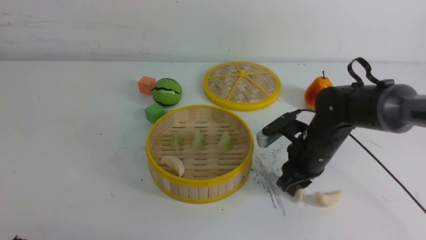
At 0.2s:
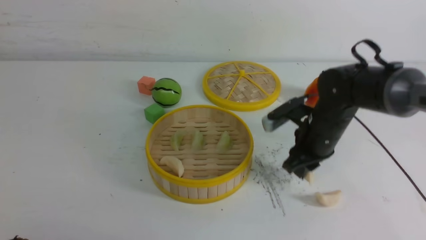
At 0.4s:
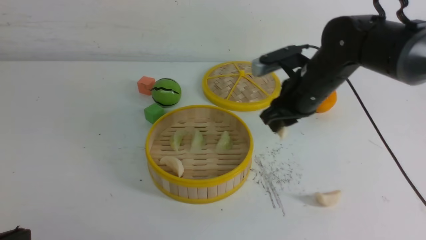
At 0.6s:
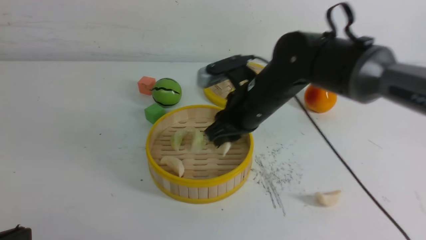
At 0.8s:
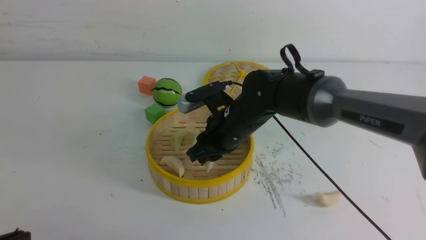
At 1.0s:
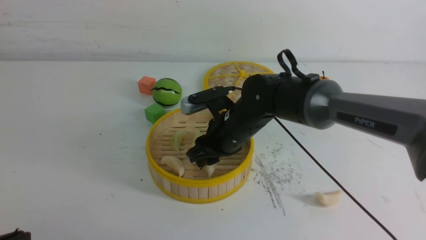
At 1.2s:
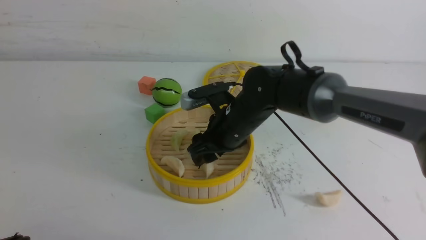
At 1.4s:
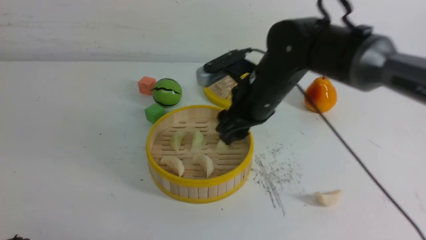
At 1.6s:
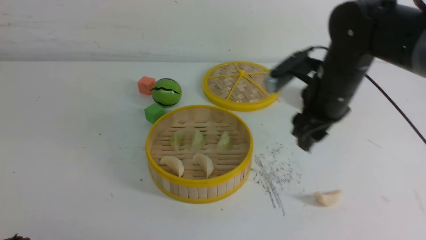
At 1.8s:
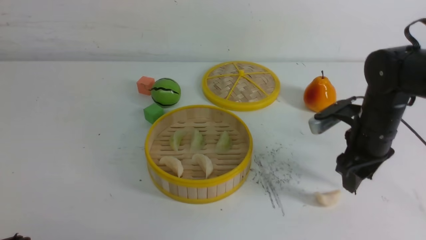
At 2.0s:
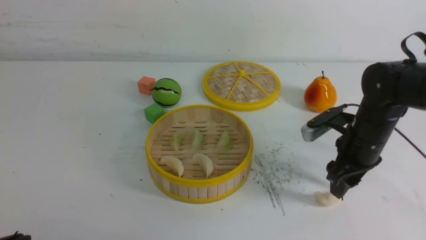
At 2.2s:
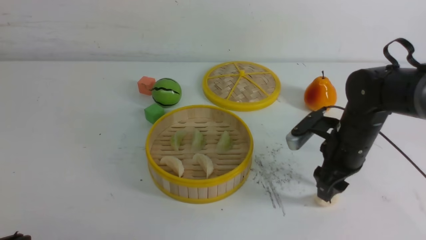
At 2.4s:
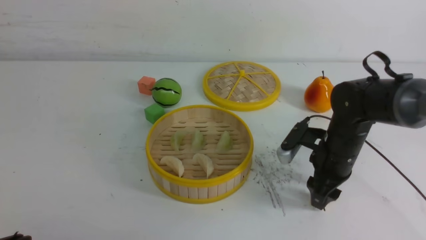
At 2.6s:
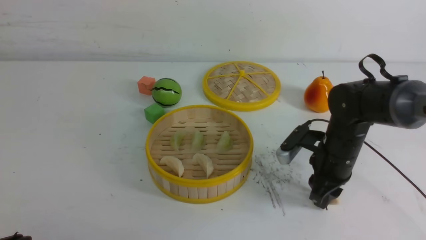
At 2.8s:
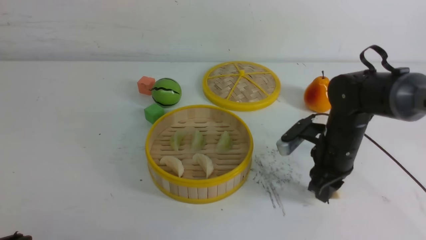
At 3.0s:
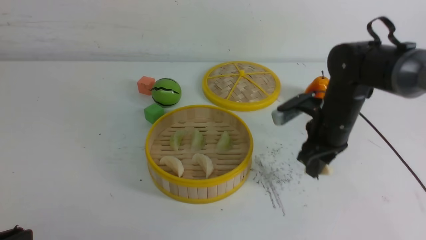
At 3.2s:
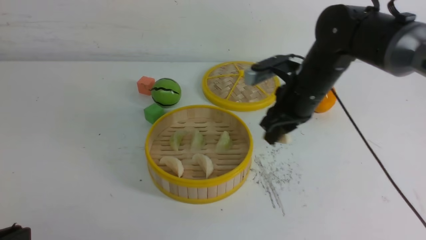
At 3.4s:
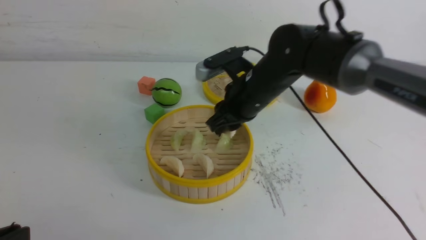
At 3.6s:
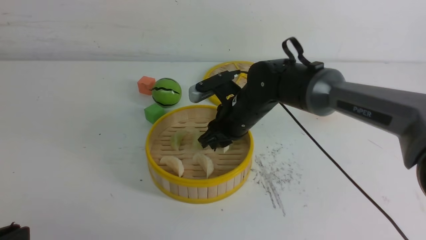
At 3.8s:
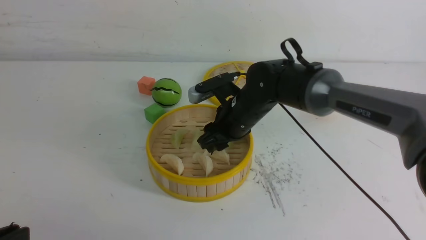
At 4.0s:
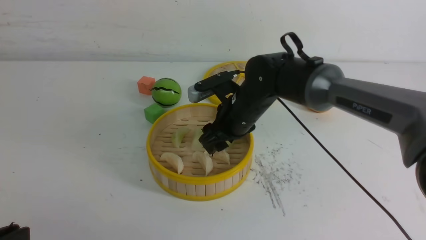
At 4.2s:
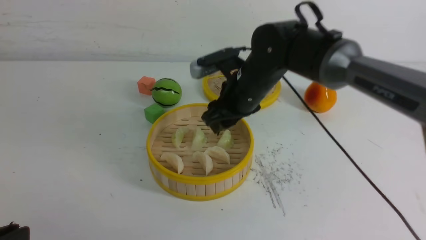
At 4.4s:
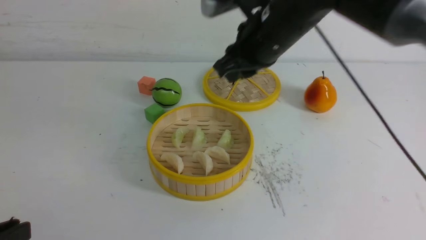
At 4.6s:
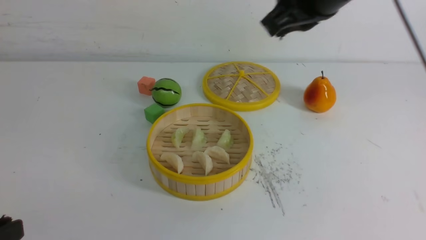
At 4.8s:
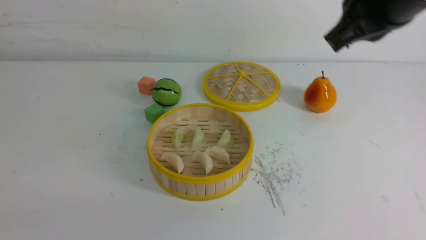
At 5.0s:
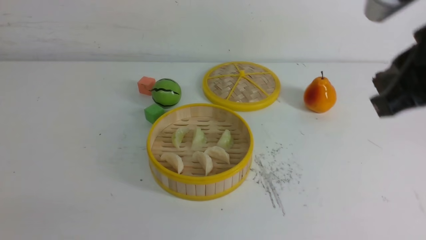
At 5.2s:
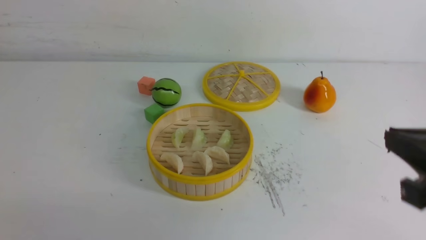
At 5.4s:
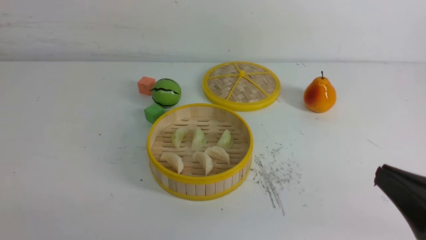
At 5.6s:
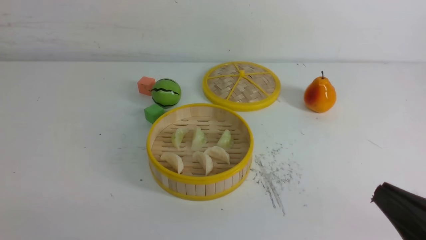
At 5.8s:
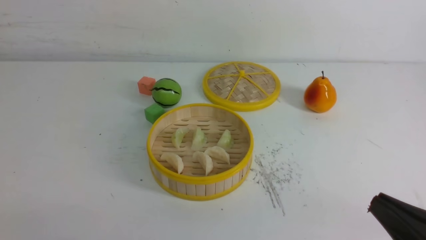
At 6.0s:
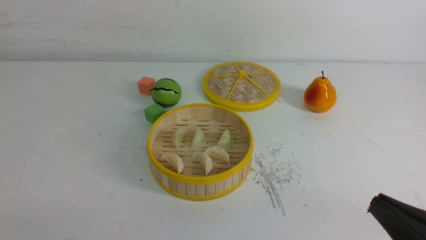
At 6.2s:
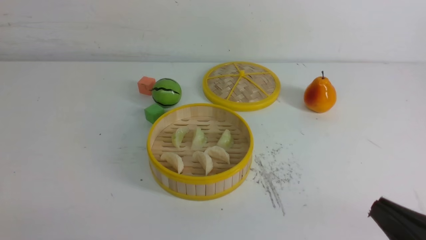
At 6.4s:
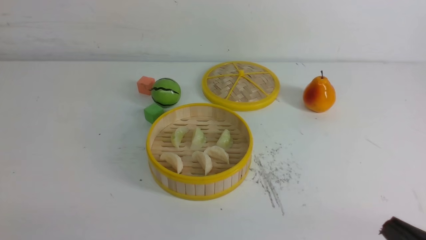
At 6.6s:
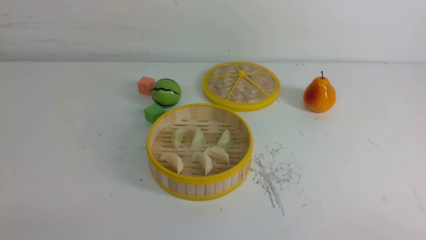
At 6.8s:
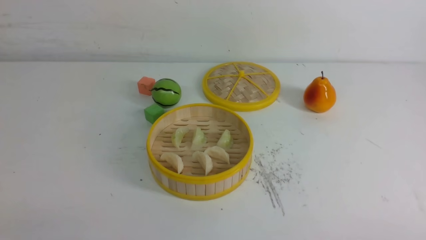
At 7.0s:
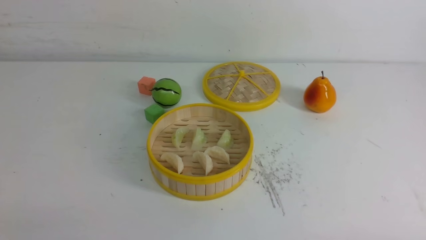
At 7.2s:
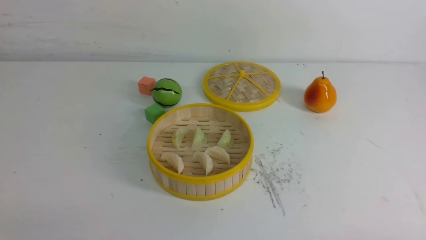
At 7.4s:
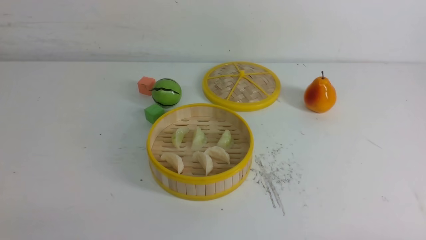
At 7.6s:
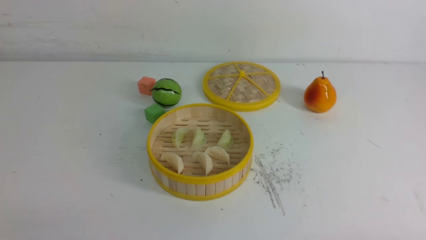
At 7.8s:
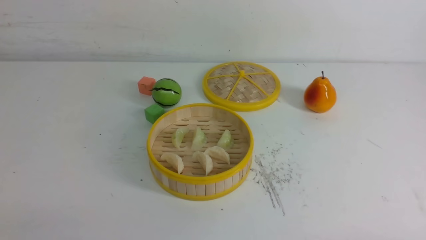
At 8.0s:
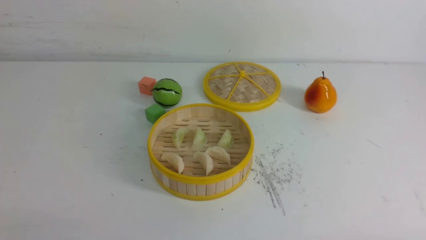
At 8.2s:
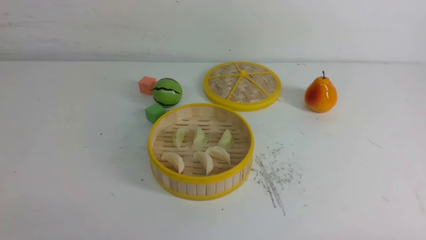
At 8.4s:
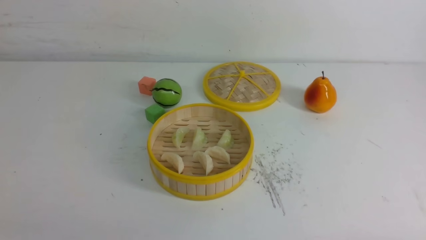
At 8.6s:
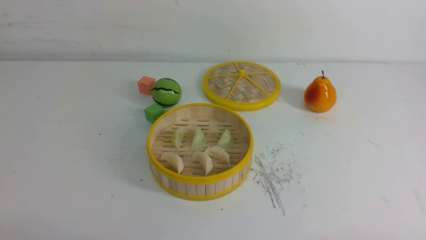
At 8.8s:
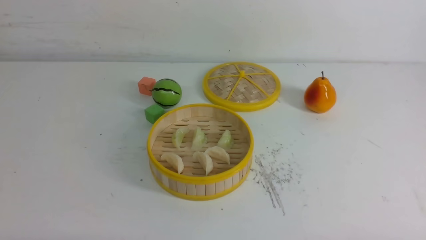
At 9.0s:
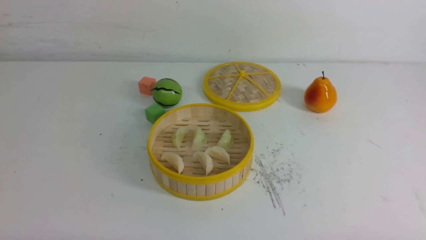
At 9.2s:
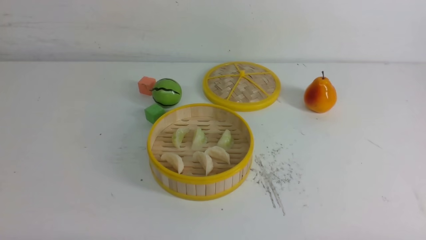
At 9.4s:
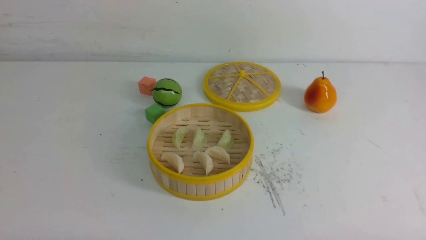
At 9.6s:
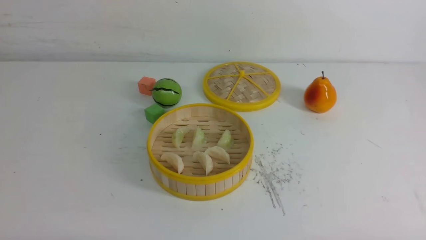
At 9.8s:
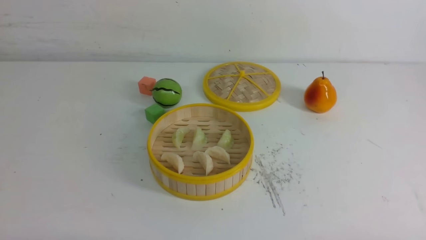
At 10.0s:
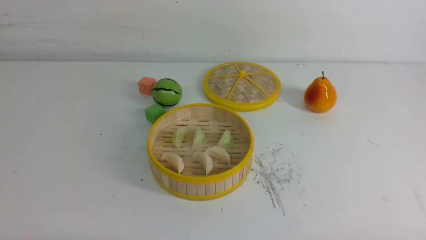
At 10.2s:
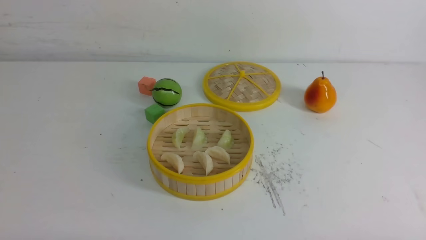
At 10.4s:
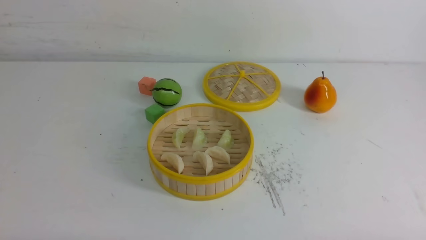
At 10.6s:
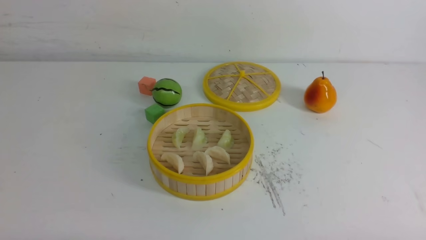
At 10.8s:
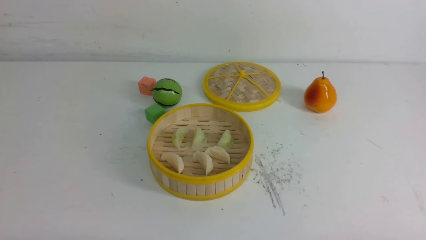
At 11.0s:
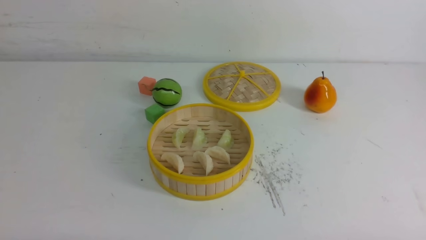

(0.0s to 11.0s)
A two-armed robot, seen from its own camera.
Task of the whole recording: put the dumplings into the steamer on the white table.
Step, 0.4s - 1.0s: use the right arm to put the dumpling into the steamer.
Step, 1.4s - 2.6s: use the right arm to grab a dumpling.
Step, 3.0s - 3.8s: use the right arm to put the dumpling into the steamer.
0.0s - 1.6s: The right gripper moves upward, some 10 cm, moves roughly 15 cm to the left and comes back, and opens.
1.6s - 3.2s: The right gripper closes its fingers.
3.2s - 4.8s: The right gripper shifts some 25 cm upward and backward, and closes up.
4.8s - 6.2s: The right gripper moves downward and backward, about 30 cm.
6.2s - 7.8s: The right gripper travels downward and to the right by about 10 cm.
9.4s - 11.0s: Neither gripper changes place.

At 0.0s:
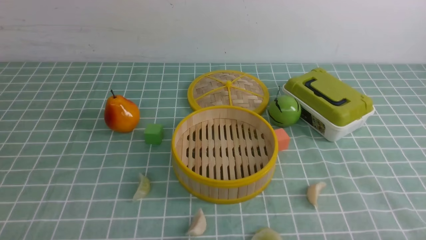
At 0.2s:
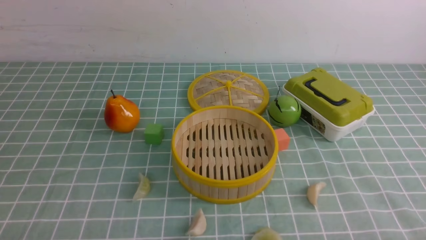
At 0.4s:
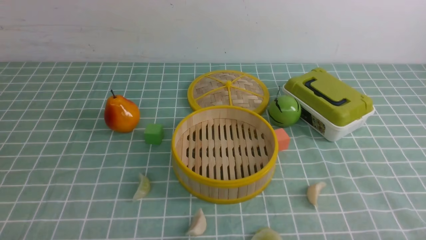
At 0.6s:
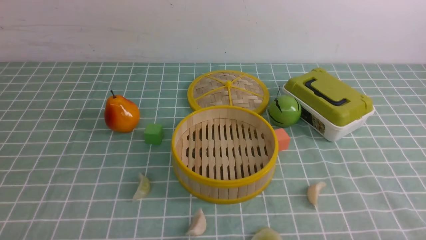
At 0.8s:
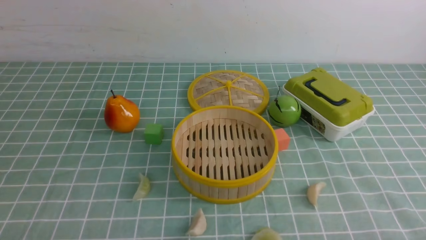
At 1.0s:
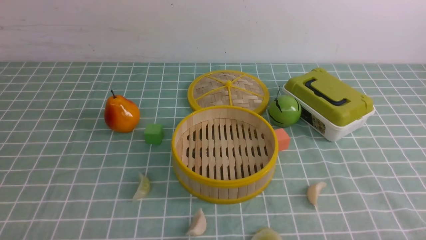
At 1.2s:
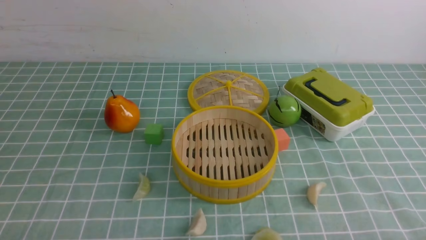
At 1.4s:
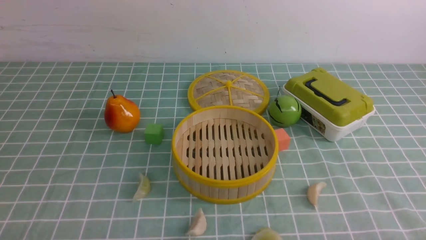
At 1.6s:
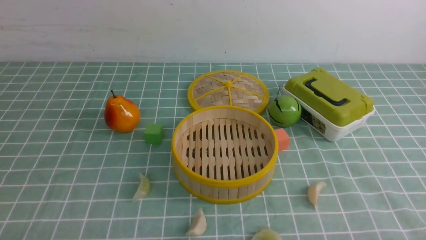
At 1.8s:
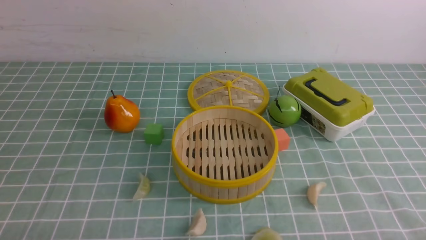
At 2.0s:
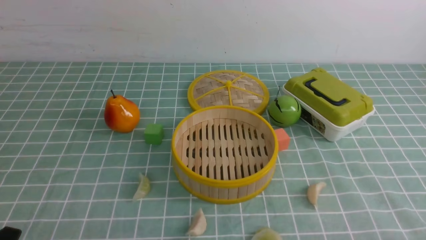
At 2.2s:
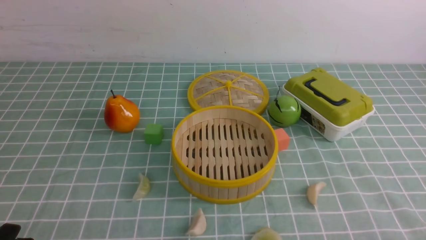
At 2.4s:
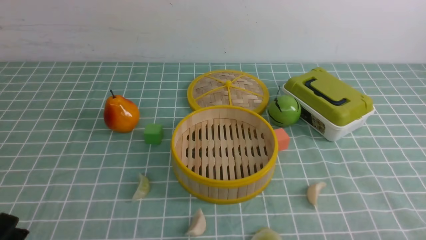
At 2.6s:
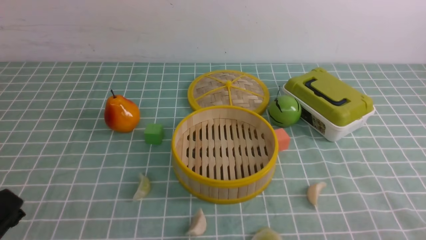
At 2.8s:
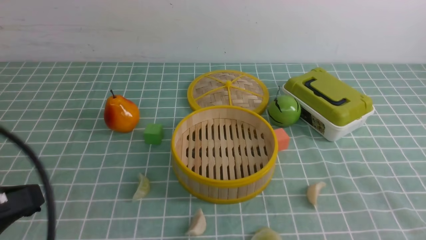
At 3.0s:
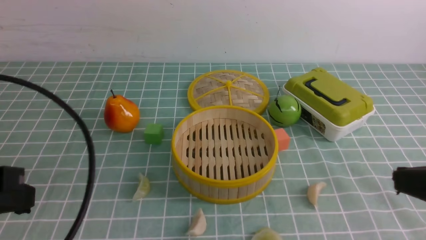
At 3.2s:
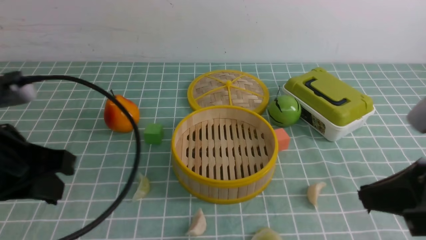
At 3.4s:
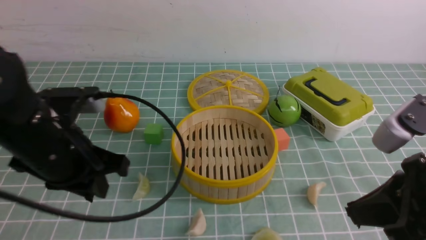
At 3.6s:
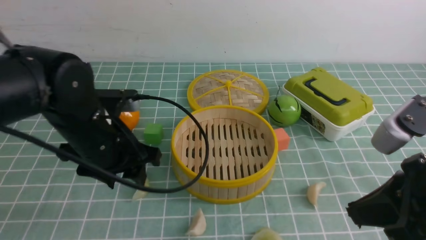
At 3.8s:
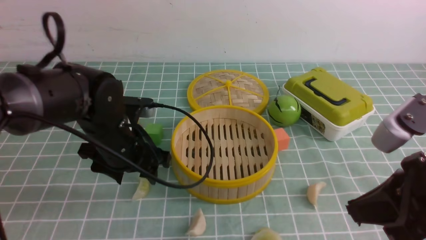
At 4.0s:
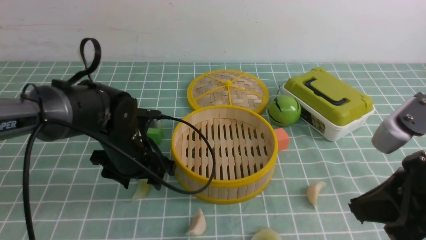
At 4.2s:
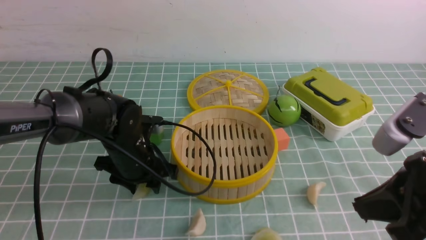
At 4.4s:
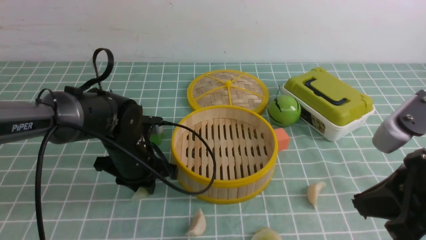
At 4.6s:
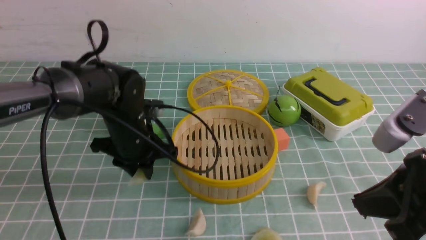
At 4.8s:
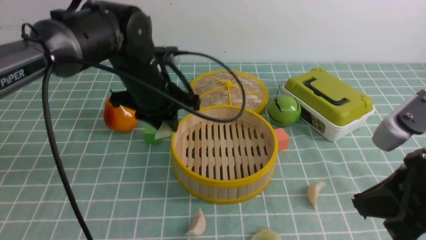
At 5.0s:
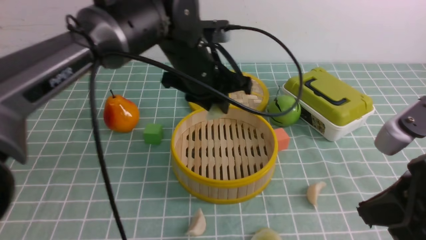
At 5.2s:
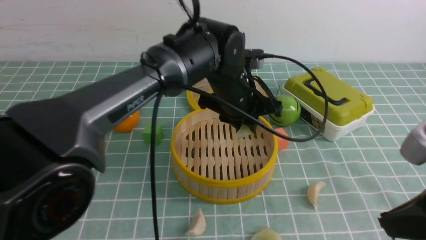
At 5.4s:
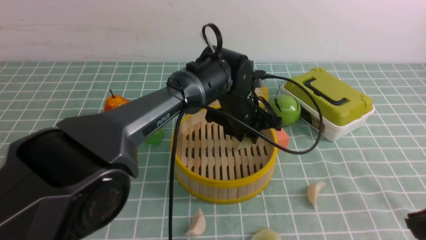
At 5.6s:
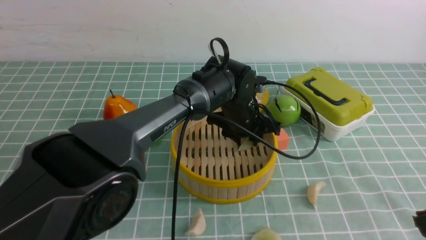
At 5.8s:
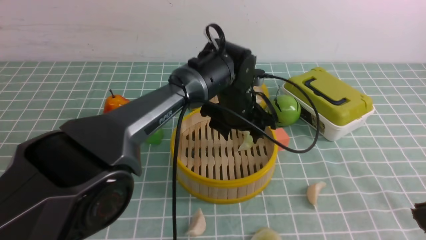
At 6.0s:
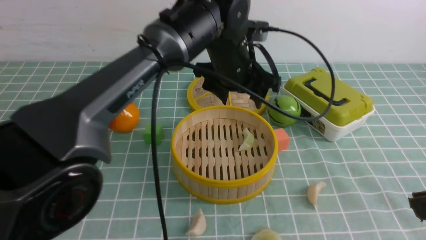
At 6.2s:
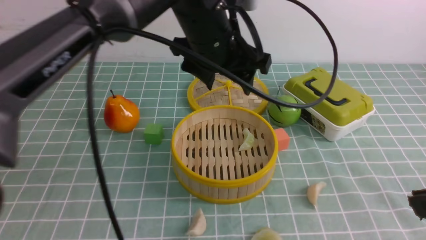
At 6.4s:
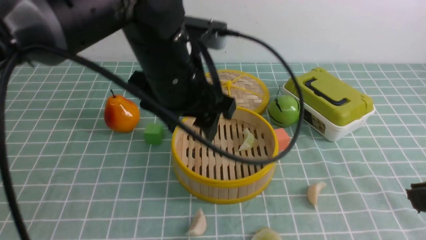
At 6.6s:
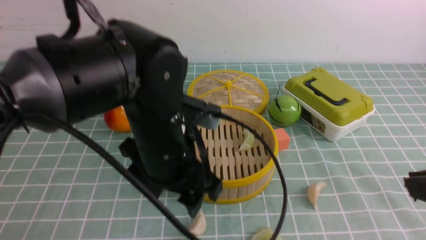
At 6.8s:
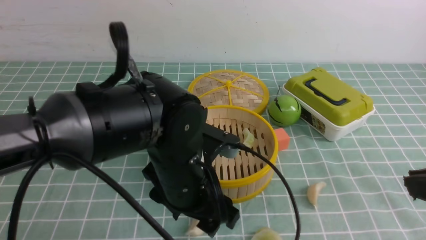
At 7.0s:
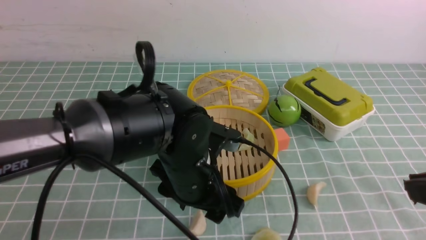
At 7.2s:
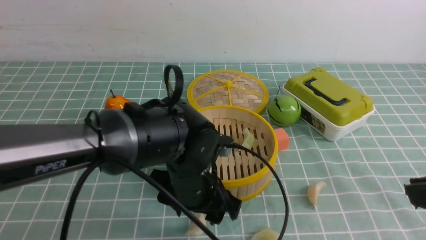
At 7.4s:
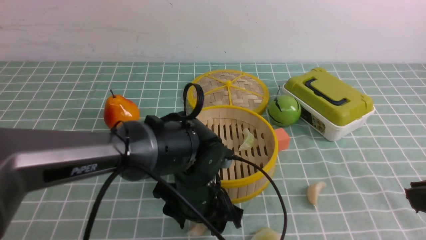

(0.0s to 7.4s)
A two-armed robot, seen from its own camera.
Task of the whole recording: put the dumplings into the steamer on the table with the blue tablecloth.
Step, 0.0s - 4.8s: use the left arm to grab a dumpling.
Step, 5.0s - 5.6s: use the left arm to put the dumpling into the steamer.
0.0s - 1.4s: Both grippers stay put.
1.4s - 3.0s: The grippers both shift upward and forward by approximately 20 cm. The left gripper closes up; the right gripper closes its fingers.
3.0s - 4.4s: The left gripper is displaced forward, downward and to the right by approximately 30 cm, and opens up. Meanwhile the right gripper shifts by some 5 cm.
4.4s - 6.0s: The right gripper heads backward, covering approximately 5 cm; the left gripper is displaced to the right and upward by approximately 20 cm, and opens up.
6.0s - 7.4s: The left gripper is displaced downward and backward by some 20 cm.
